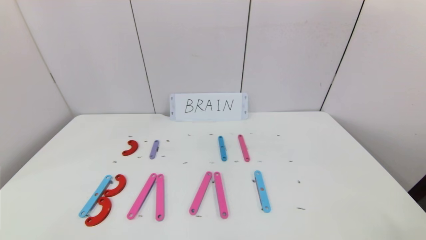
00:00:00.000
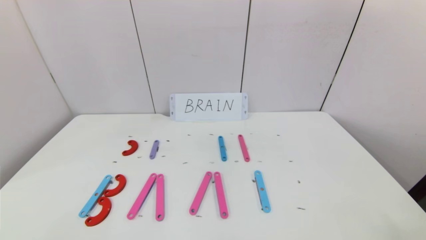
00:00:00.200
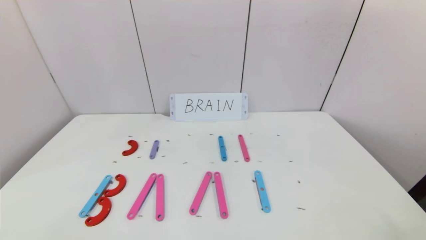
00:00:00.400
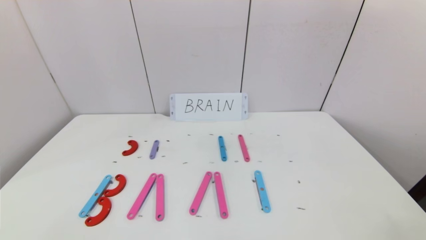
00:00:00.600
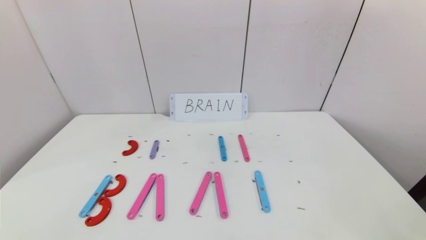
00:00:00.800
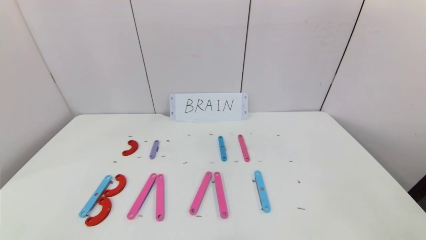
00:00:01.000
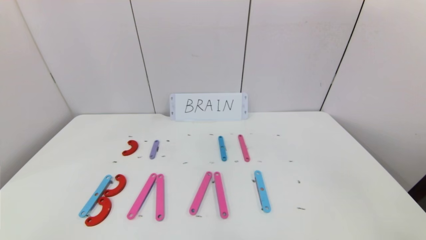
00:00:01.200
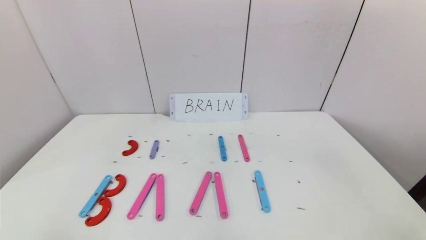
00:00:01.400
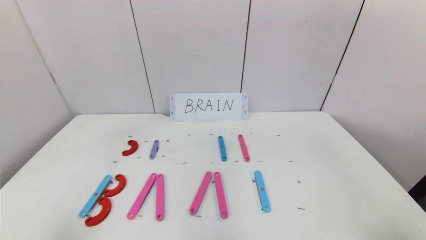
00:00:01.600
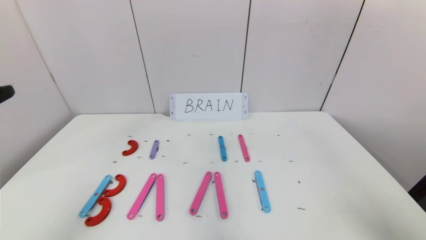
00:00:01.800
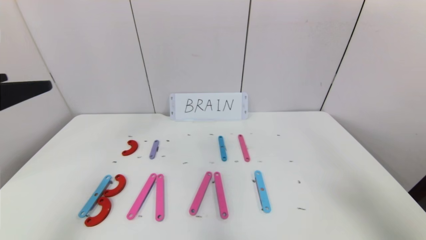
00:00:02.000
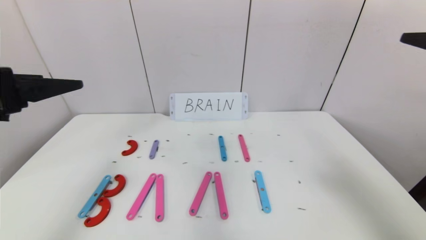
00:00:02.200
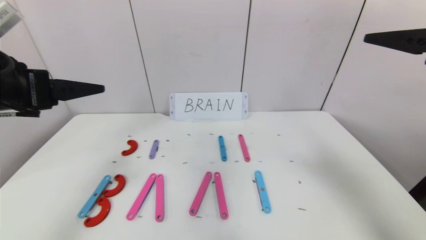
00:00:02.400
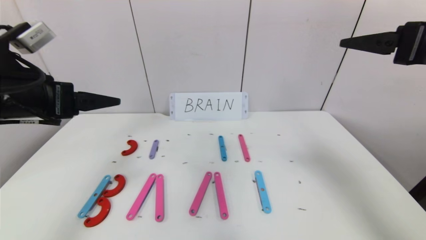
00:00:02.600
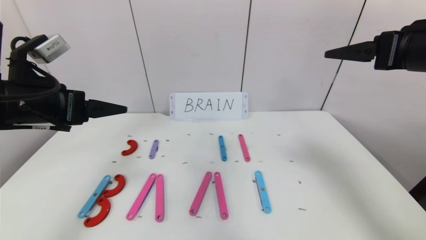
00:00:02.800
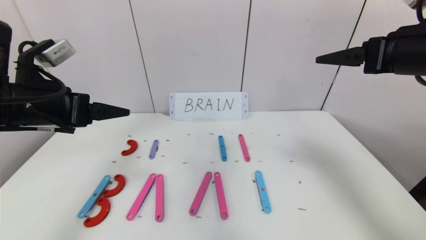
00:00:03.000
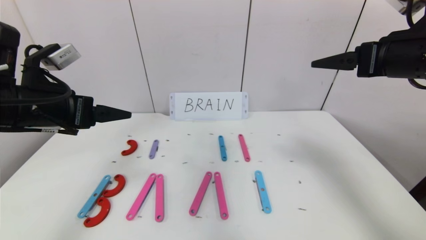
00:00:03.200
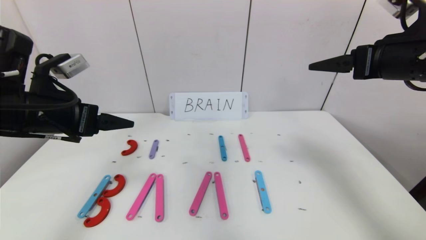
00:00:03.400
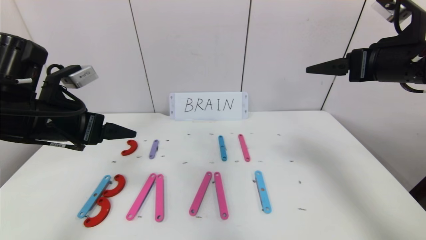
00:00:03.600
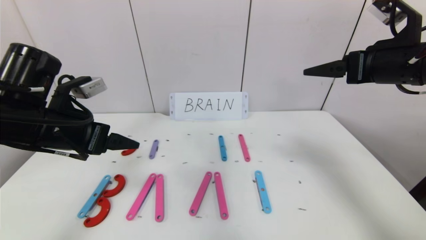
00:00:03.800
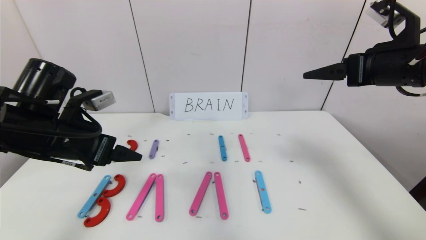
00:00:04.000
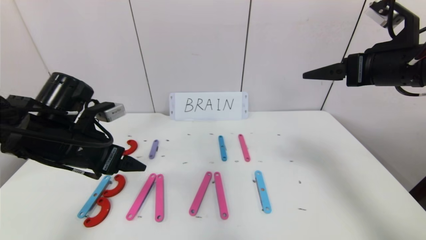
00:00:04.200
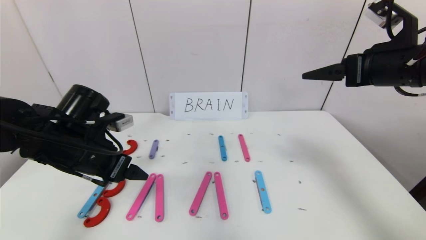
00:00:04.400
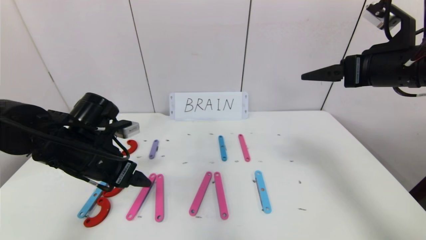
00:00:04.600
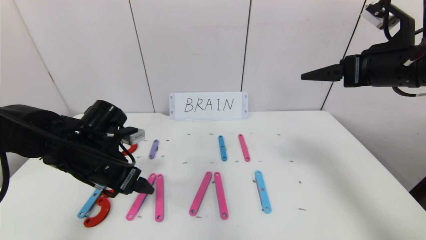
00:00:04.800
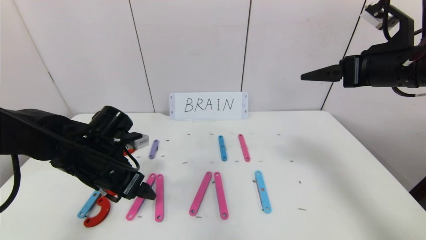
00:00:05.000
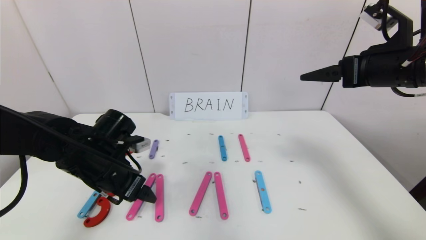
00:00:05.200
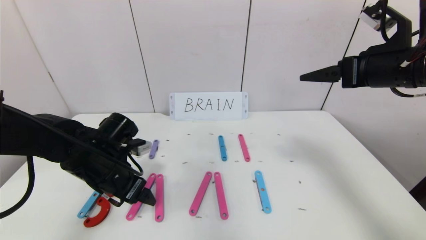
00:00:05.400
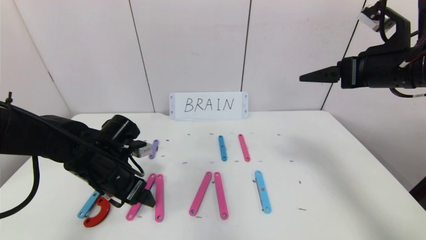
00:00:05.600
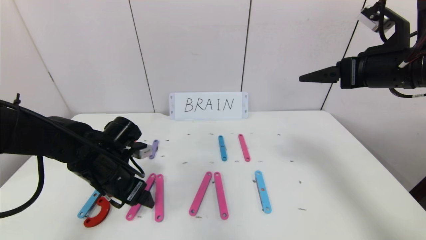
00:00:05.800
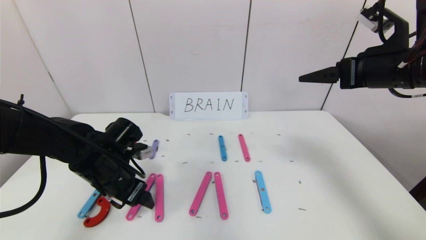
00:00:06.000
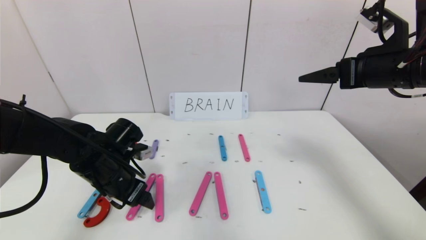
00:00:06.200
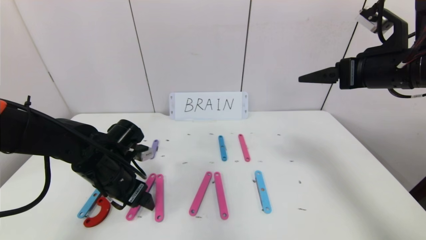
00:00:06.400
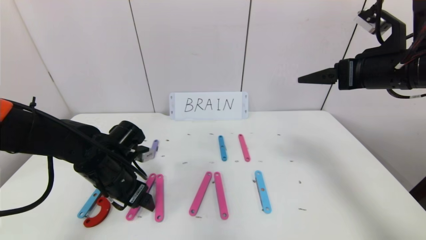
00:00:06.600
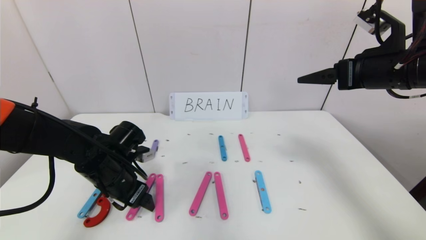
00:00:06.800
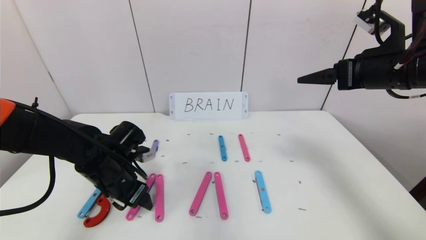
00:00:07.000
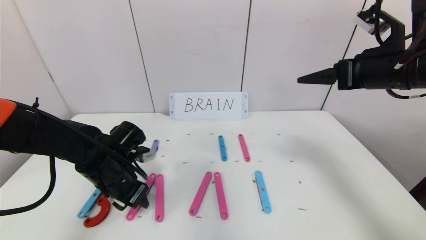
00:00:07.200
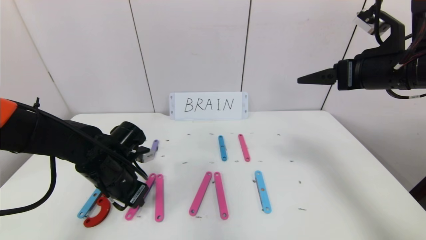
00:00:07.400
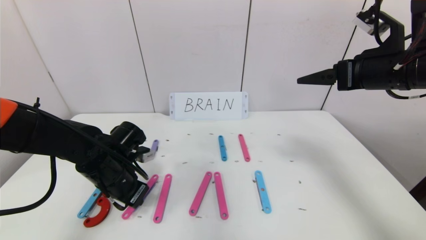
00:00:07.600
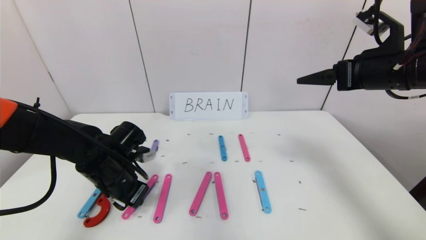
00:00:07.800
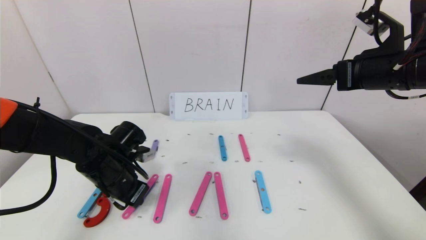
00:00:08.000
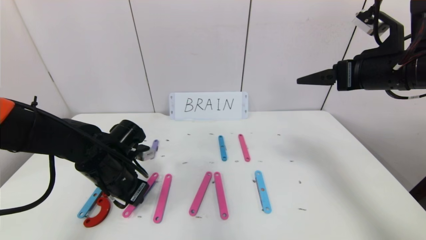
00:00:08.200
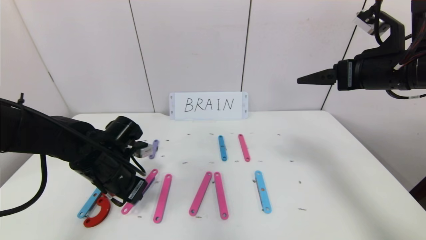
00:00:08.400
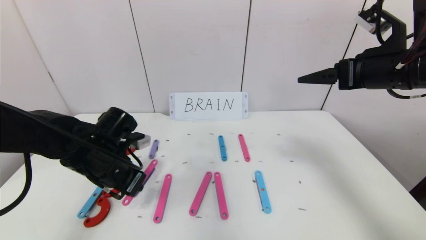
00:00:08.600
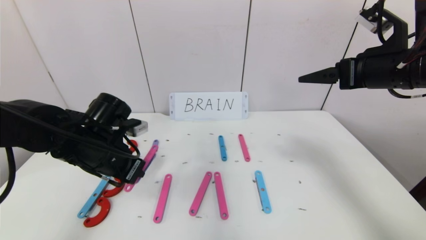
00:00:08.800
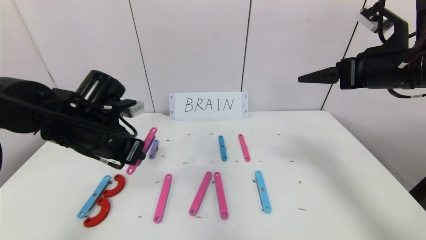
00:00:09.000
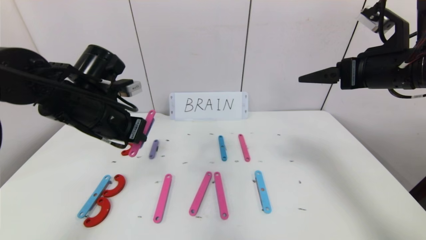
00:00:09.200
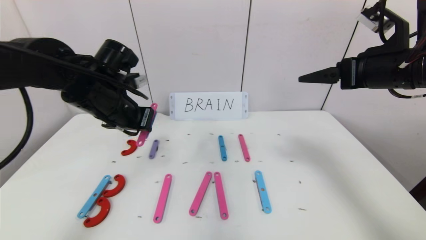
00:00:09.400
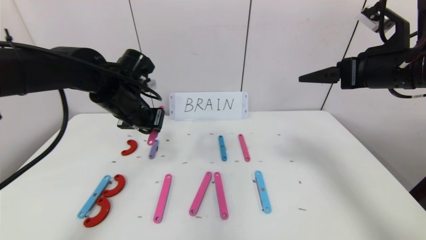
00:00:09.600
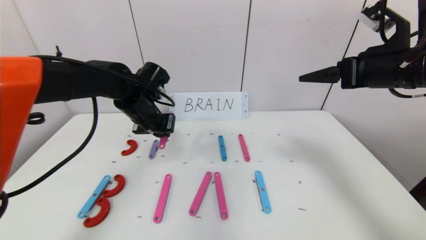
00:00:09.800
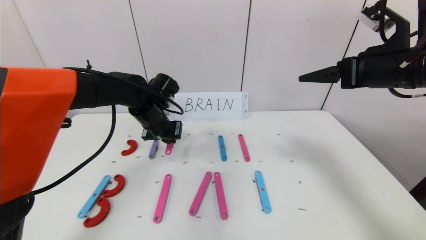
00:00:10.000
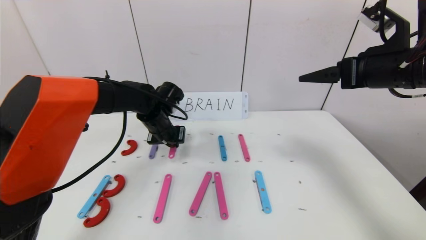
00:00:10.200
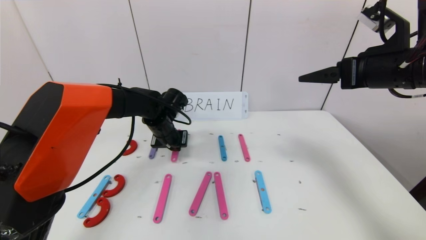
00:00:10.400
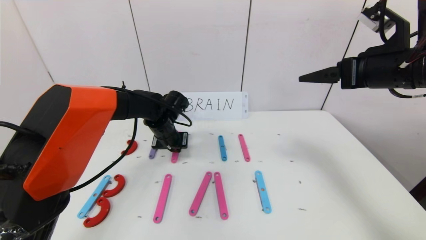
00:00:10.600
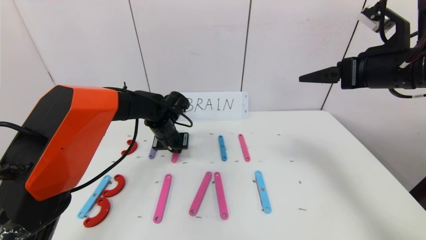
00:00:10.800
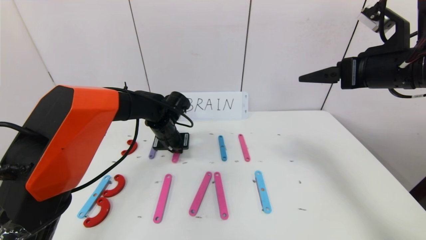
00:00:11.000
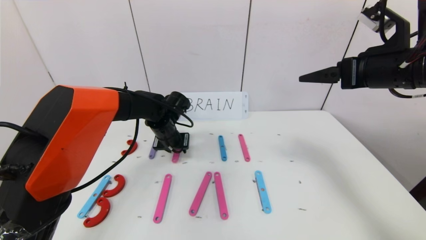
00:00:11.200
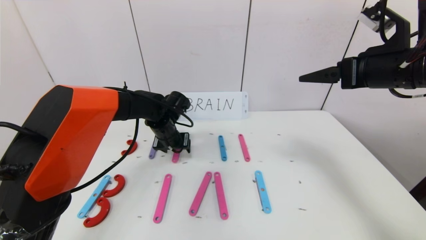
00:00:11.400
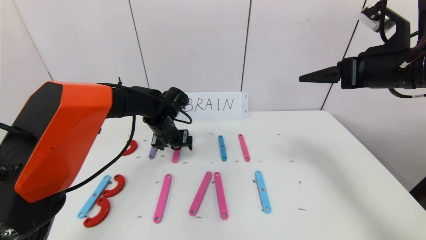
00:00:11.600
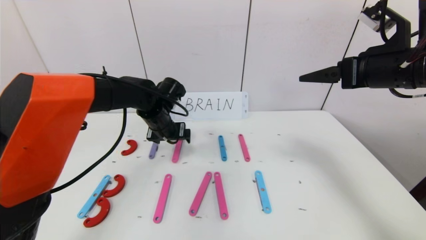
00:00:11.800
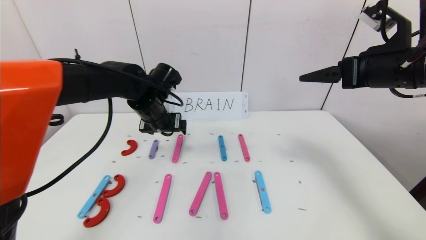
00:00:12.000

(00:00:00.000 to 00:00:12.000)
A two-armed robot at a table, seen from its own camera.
Task of the whole recording: rearrange the word baai as brain.
00:00:01.600 - 00:00:03.000: The grippers both shift forward by roughly 20 cm.
00:00:03.000 - 00:00:04.400: The left gripper goes some 10 cm downward.
00:00:04.400 - 00:00:06.000: The left gripper heads downward, covering approximately 5 cm.
00:00:06.000 - 00:00:07.600: The left gripper closes its fingers.
00:00:07.600 - 00:00:09.000: The left gripper is displaced upward by about 10 cm.
00:00:09.000 - 00:00:10.400: The left gripper goes about 20 cm forward, downward and to the right.
00:00:10.400 - 00:00:12.000: The left gripper is displaced upward by about 10 cm, and opens up.

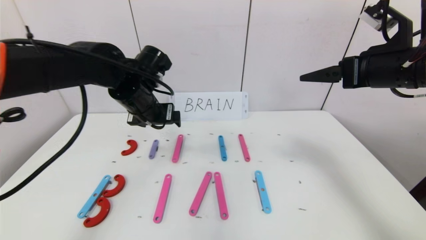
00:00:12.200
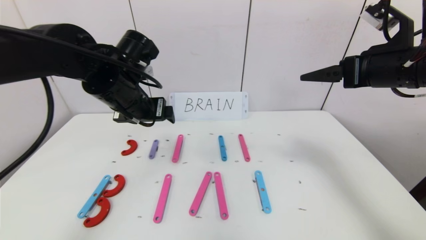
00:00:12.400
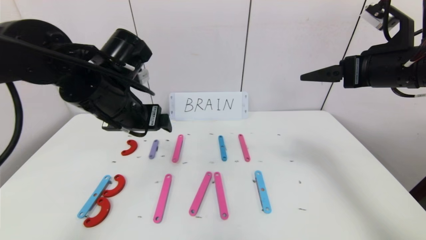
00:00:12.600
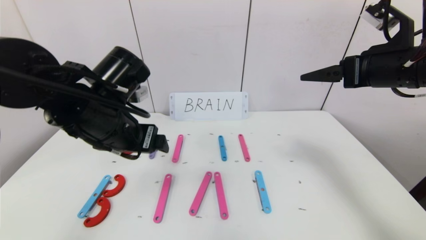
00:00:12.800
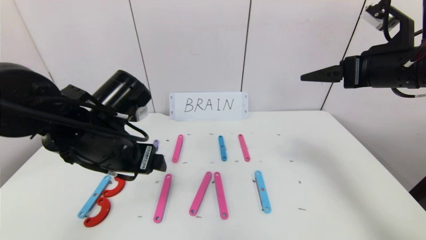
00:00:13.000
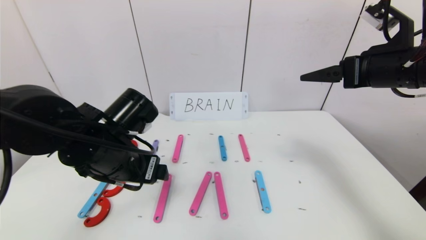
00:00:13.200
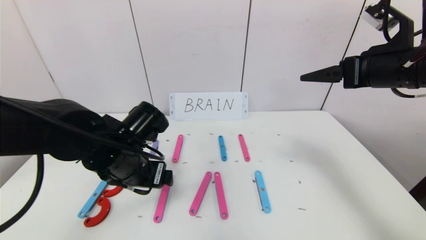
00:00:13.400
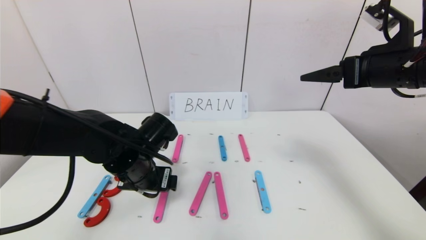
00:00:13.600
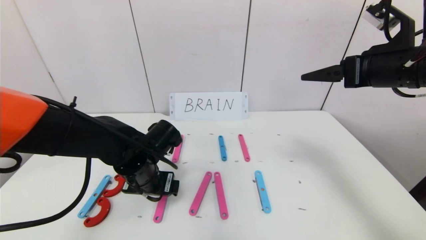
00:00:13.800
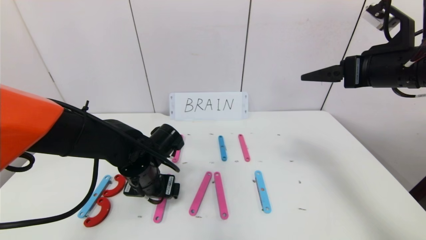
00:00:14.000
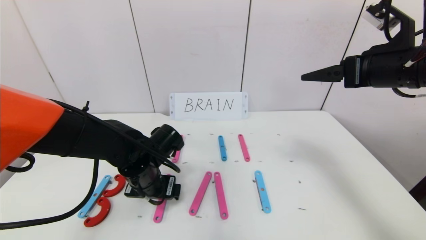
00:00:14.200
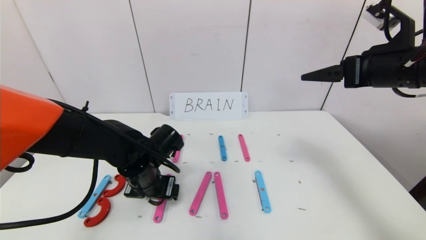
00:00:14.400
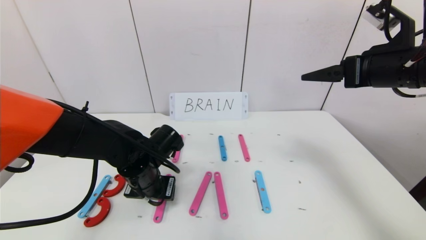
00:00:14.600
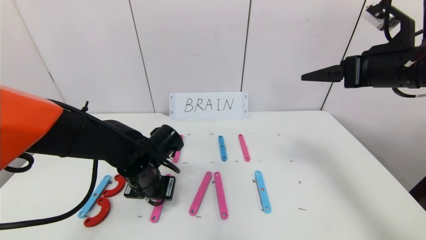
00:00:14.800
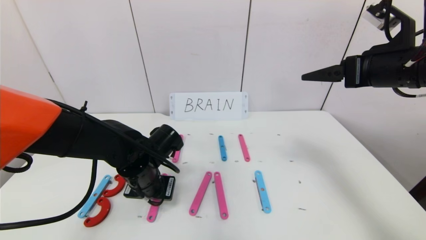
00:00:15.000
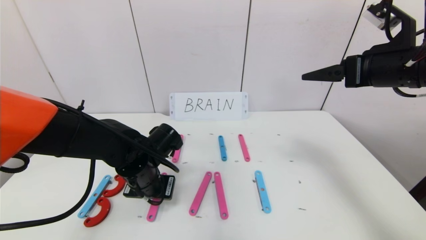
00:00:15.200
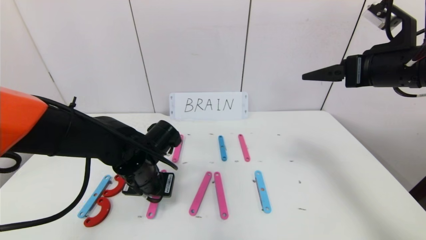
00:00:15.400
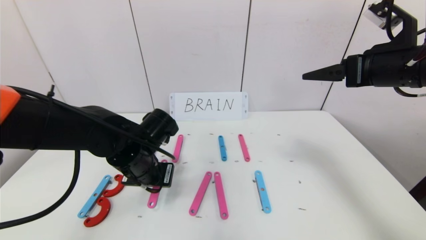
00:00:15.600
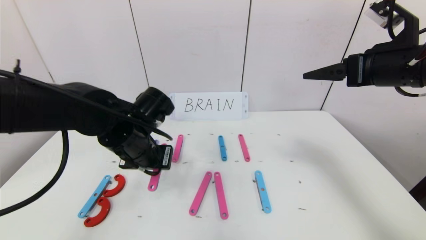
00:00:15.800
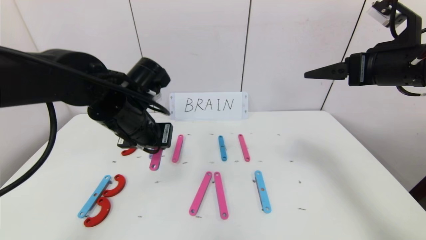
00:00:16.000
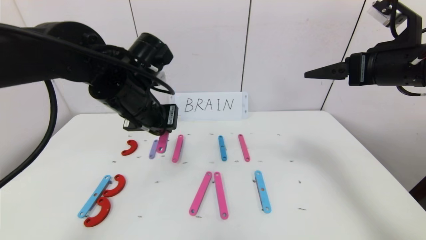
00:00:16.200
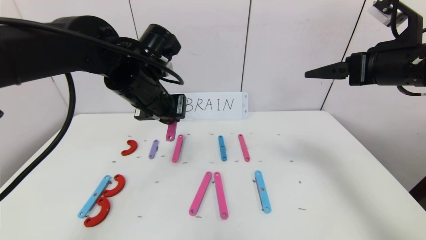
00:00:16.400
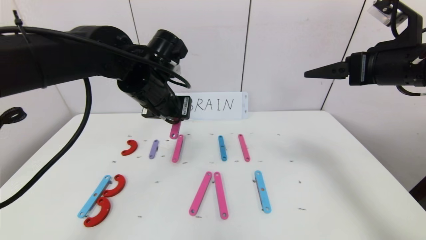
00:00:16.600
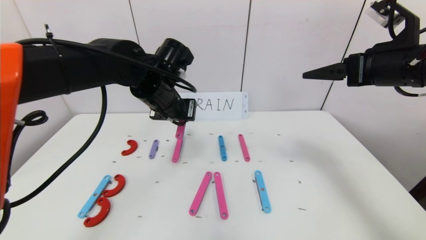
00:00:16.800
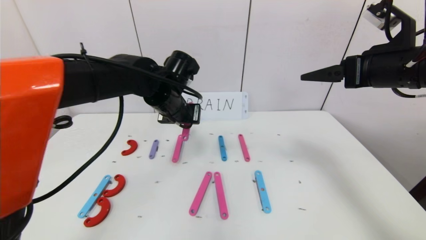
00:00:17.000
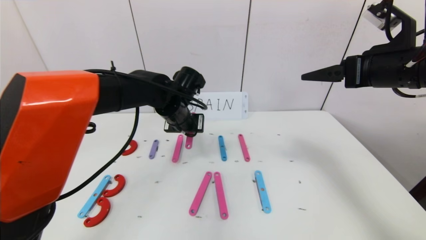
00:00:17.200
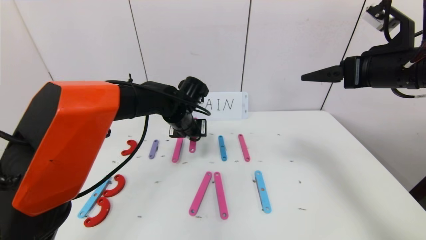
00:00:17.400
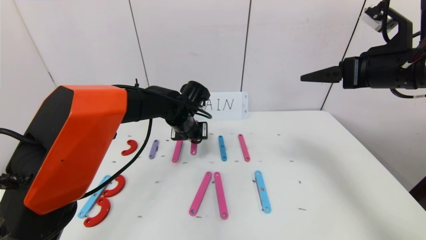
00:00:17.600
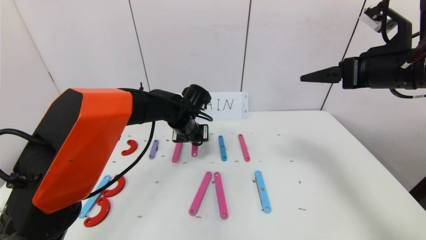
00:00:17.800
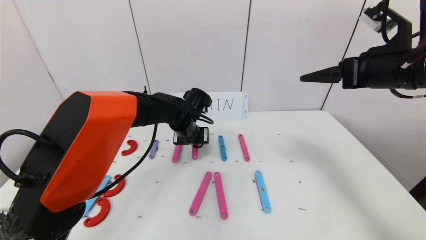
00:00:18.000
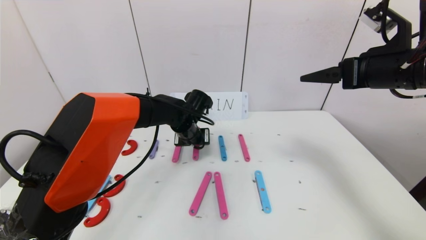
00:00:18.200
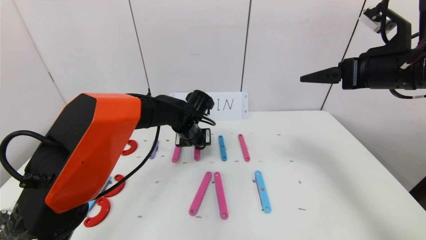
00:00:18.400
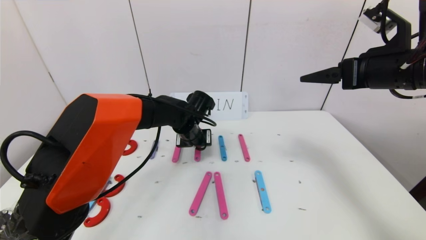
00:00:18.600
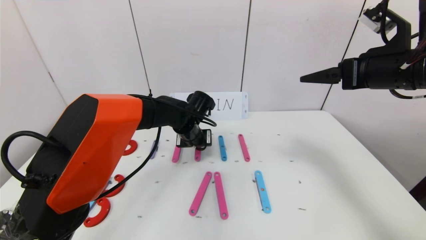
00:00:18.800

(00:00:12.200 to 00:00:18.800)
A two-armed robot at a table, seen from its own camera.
Task of the whole recording: rearrange the word baai as brain.
00:00:12.200 - 00:00:13.800: The left gripper moves downward and backward, roughly 15 cm.
00:00:13.800 - 00:00:15.400: The left gripper closes up.
00:00:15.400 - 00:00:17.200: The left gripper shifts some 15 cm forward, upward and to the right.
00:00:17.200 - 00:00:18.800: The left gripper is displaced downward by approximately 5 cm.
